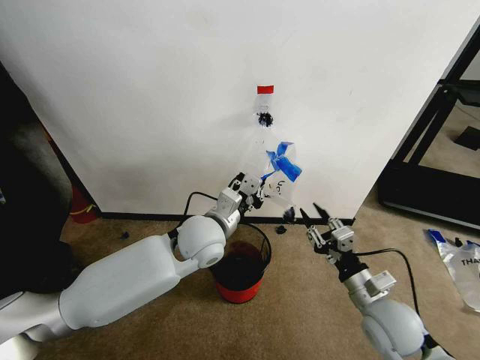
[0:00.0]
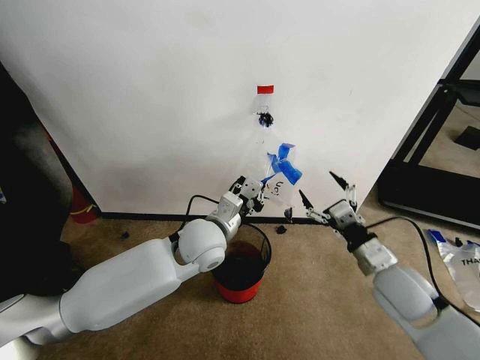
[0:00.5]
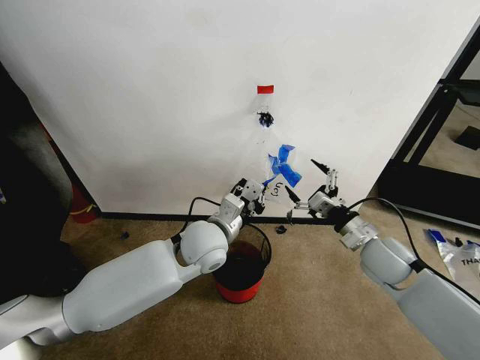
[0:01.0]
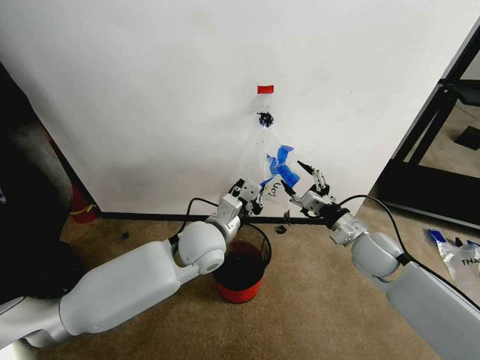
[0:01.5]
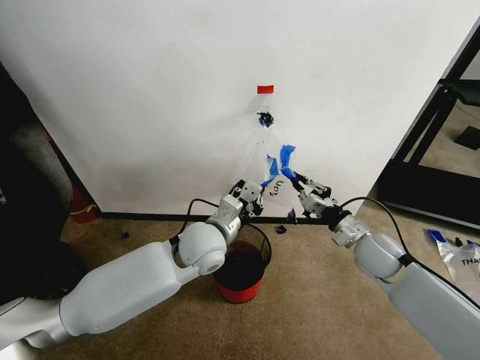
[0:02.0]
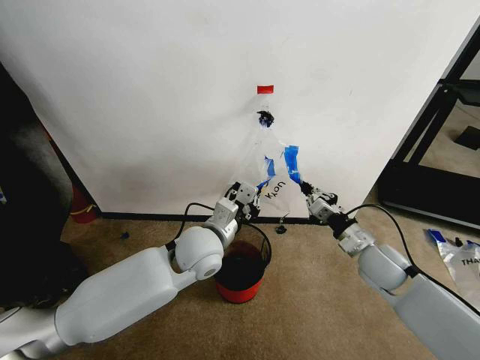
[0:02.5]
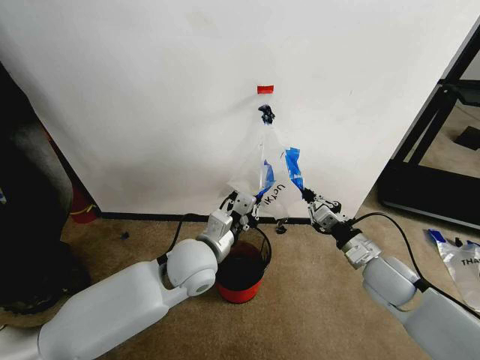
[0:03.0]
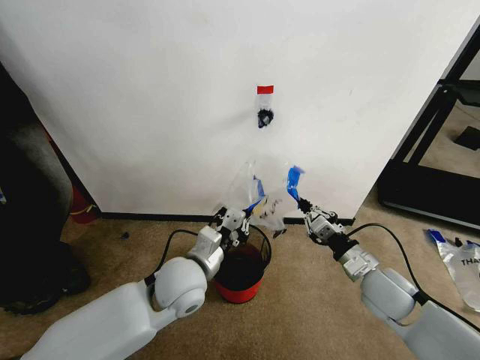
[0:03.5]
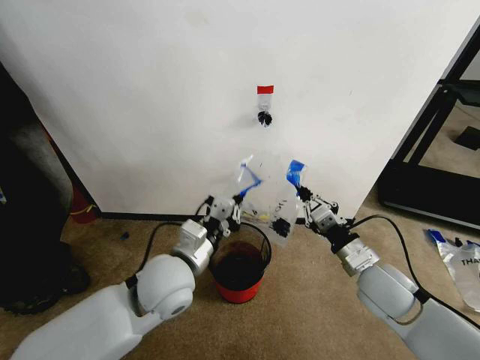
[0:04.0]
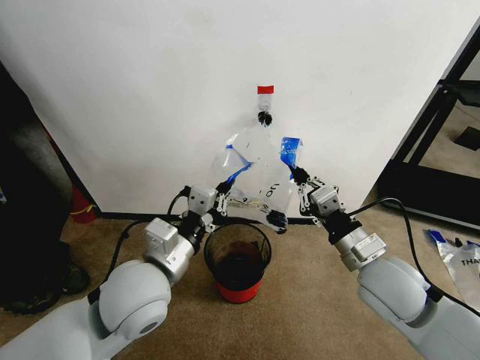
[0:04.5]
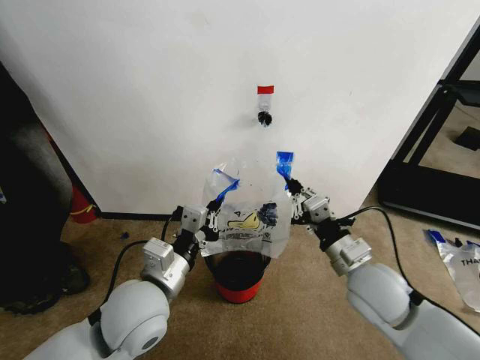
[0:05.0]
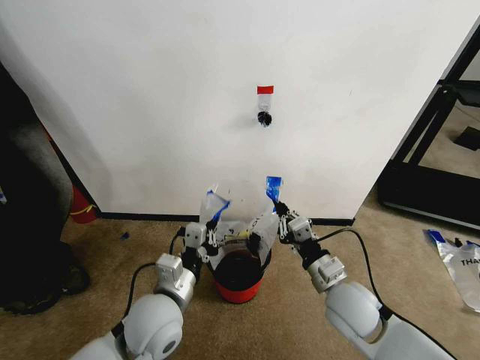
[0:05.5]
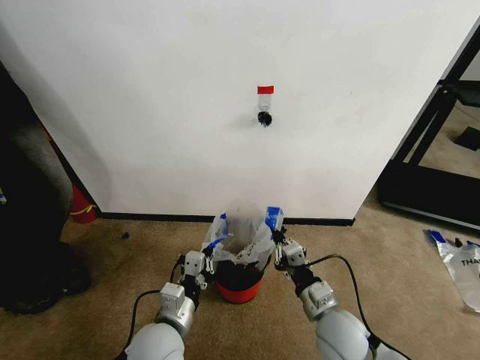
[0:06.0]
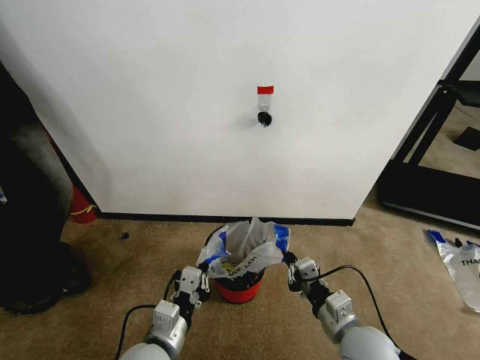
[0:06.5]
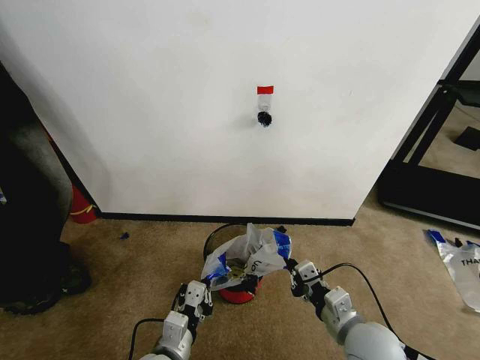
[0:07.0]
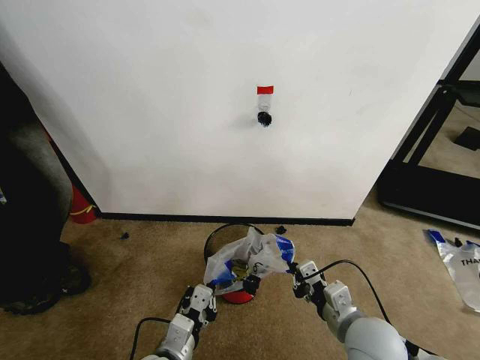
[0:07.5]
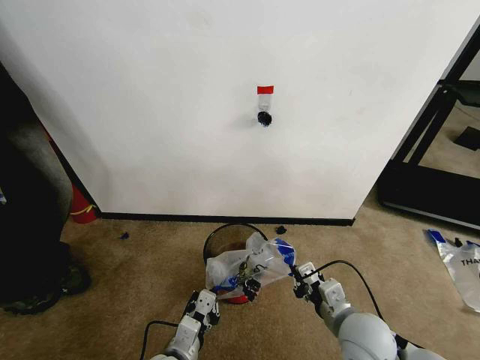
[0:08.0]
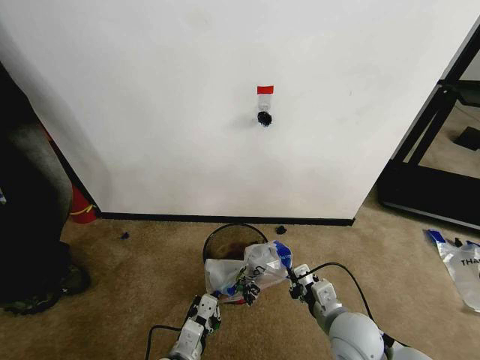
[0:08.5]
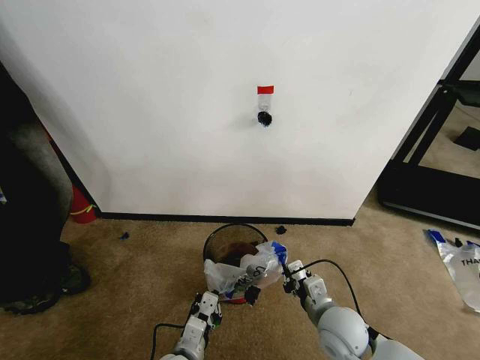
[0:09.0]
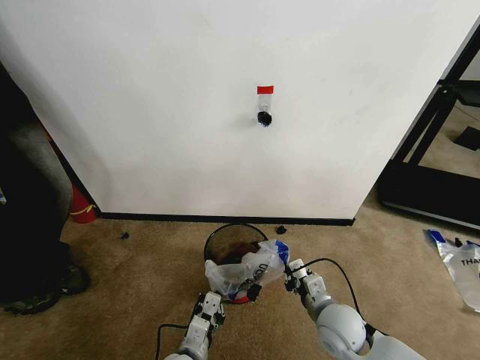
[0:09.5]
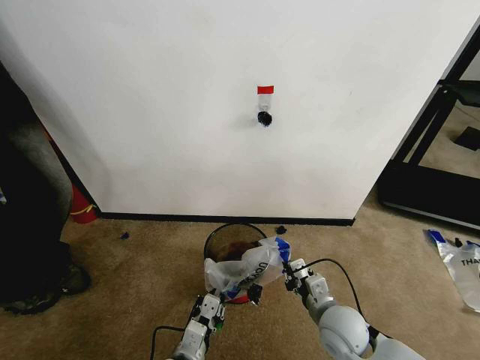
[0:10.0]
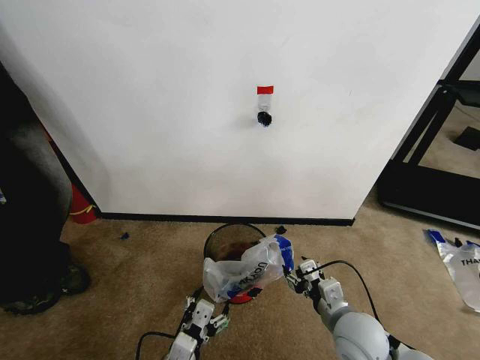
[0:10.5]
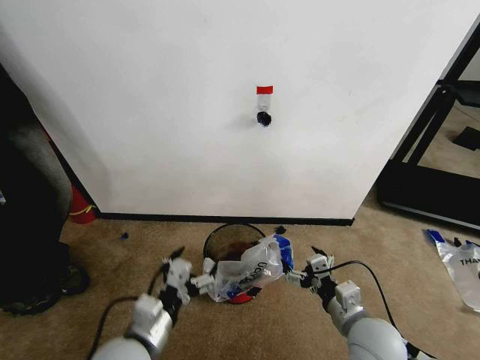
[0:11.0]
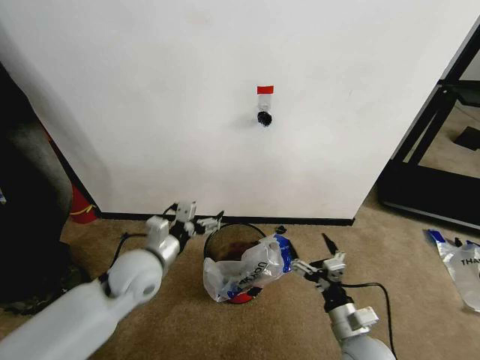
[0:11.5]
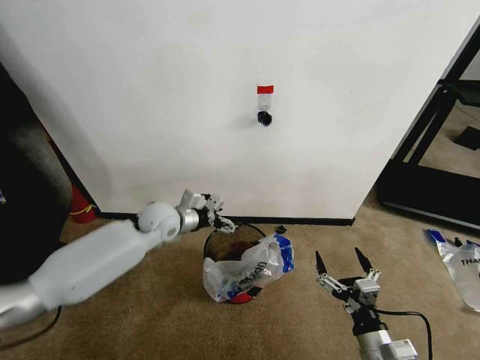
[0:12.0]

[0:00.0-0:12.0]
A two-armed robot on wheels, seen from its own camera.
Task of the whole recording: Pick up the garbage bag from the wall and place it over the trash bin.
0:00.0 to 0:02.0: The right gripper shifts about 15 cm forward, and opens, then closes again.
0:02.0 to 0:04.0: The right gripper is displaced backward by approximately 10 cm; the left gripper goes approximately 10 cm backward and to the left.
0:04.0 to 0:06.0: The right gripper is displaced to the left, downward and backward by approximately 15 cm; the left gripper moves downward and backward, roughly 15 cm.
0:06.0 to 0:08.0: The left gripper shifts approximately 5 cm downward.
0:08.0 to 0:10.0: The right gripper ends up roughly 5 cm from where it was.
0:10.0 to 0:12.0: The left gripper heads forward and upward, covering approximately 35 cm, and opens. The right gripper travels backward and to the right by approximately 15 cm, and opens up.

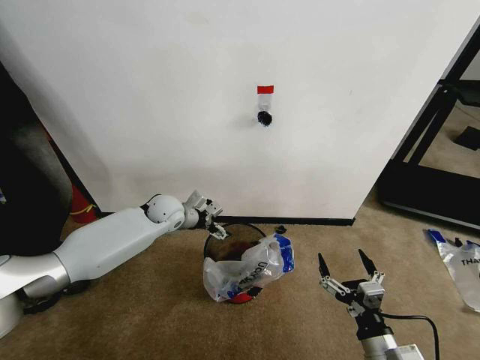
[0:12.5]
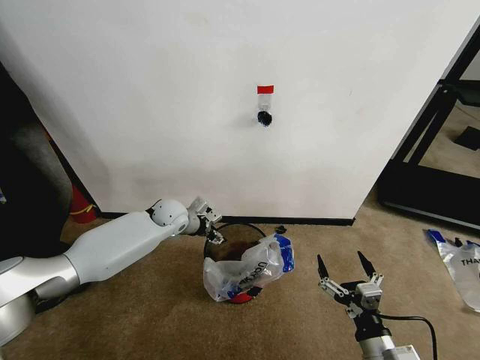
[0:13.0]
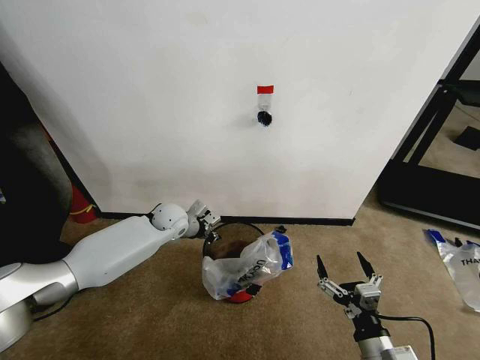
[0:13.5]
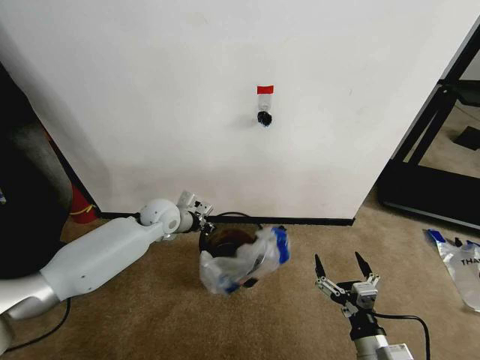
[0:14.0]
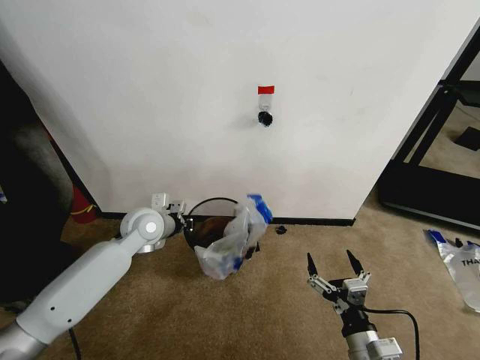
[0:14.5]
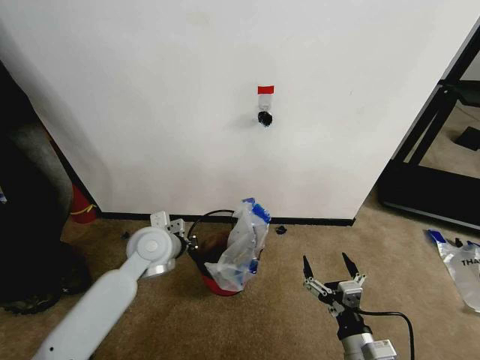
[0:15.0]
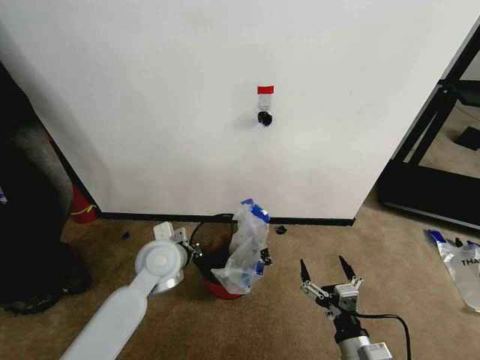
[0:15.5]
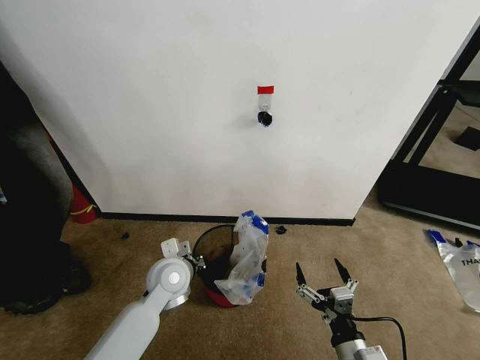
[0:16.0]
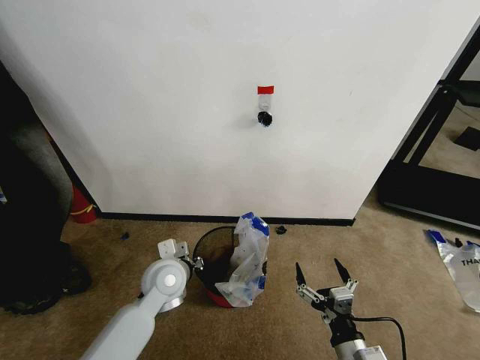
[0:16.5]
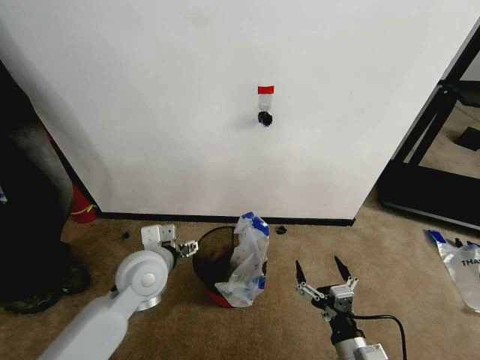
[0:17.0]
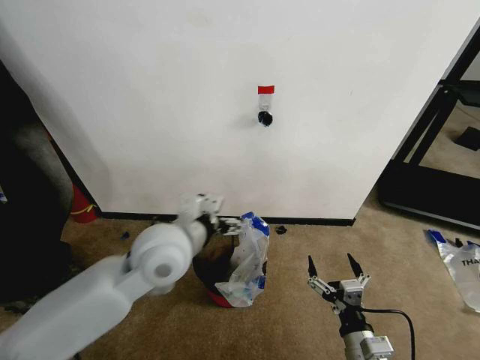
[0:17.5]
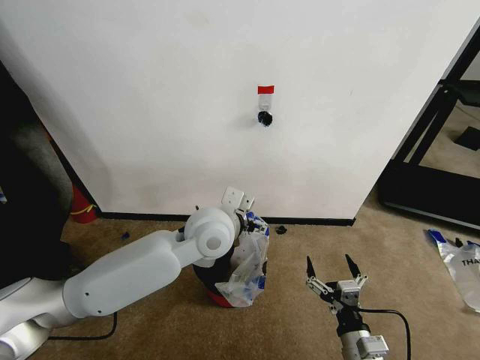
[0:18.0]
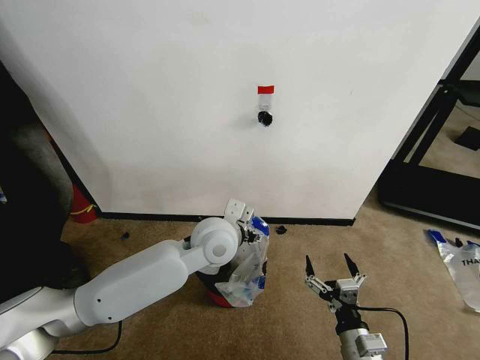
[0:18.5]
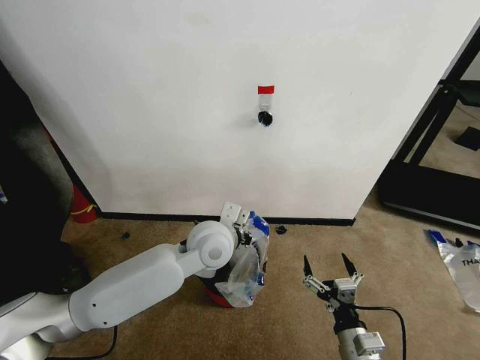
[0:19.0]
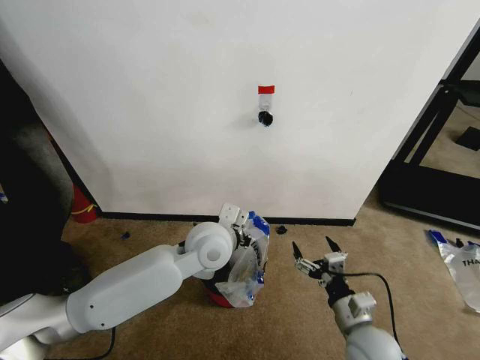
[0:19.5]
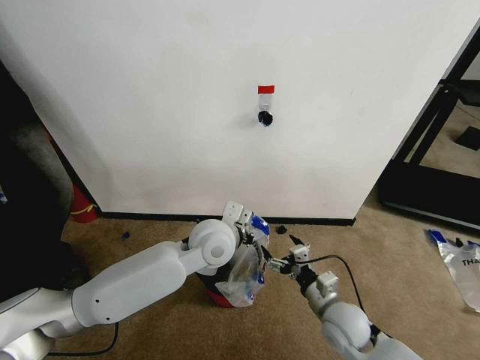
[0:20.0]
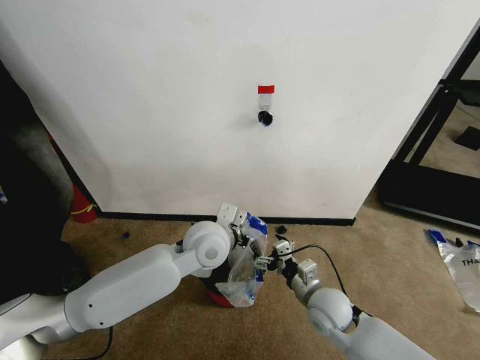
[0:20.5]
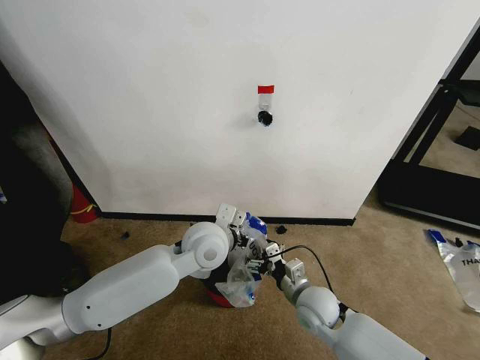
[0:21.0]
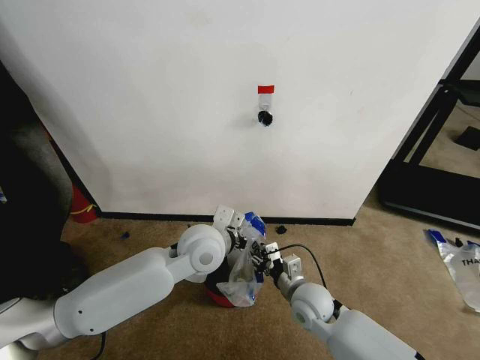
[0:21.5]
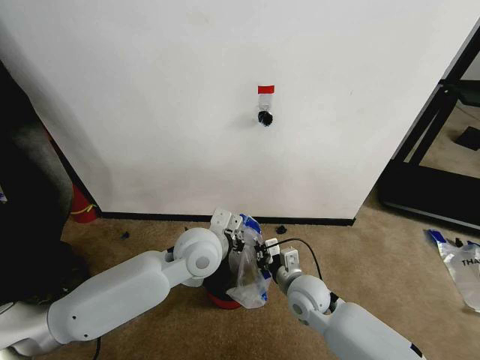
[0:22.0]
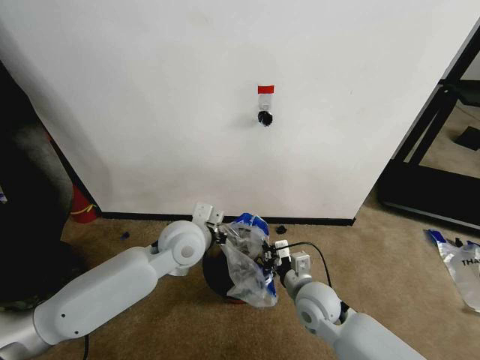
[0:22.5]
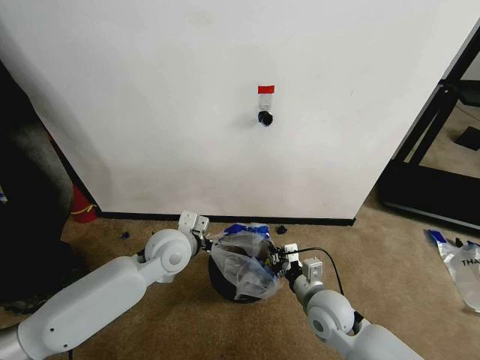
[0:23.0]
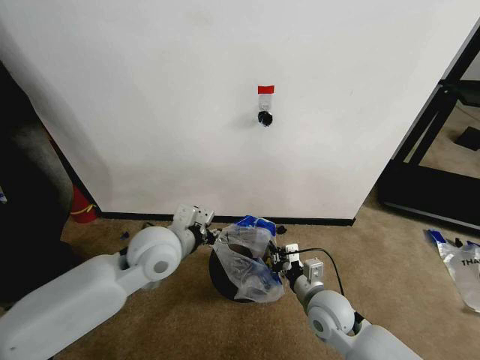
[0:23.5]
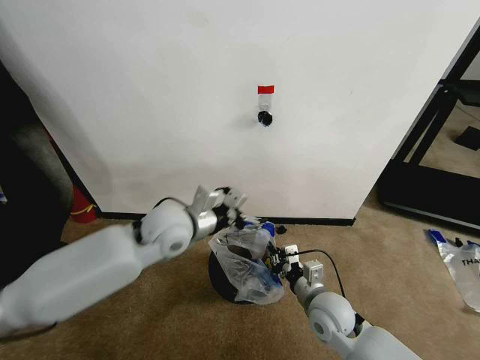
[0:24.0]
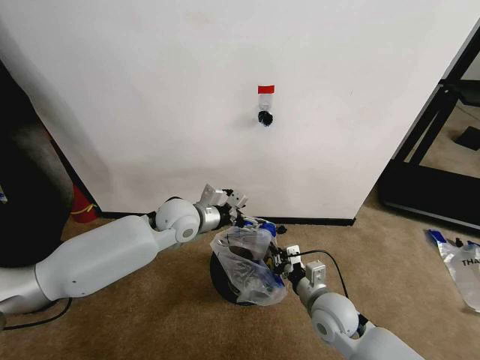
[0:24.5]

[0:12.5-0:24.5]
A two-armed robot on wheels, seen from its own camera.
Task of the whole recording: Pick up the garbage bag from the wall and place it over the trash bin.
0:12.5 to 0:14.5: The left gripper heads backward, covering some 10 cm, and closes its fingers.
0:14.5 to 0:16.5: The left gripper moves backward, downward and to the right, about 15 cm.
0:16.5 to 0:18.5: The left gripper moves to the right and upward, roughly 15 cm, and opens its fingers.
0:18.5 to 0:20.5: The left gripper closes its fingers. Meanwhile the right gripper moves forward, roughly 15 cm.
0:20.5 to 0:22.5: The right gripper closes its fingers.
0:22.5 to 0:24.5: The left gripper moves forward, about 5 cm, and opens up.

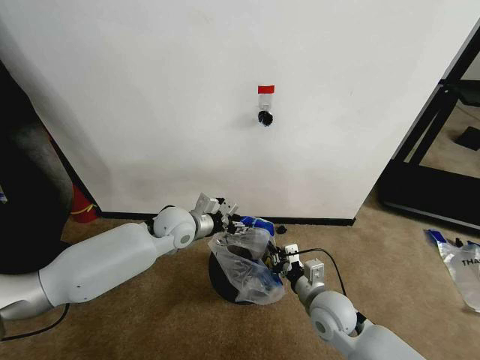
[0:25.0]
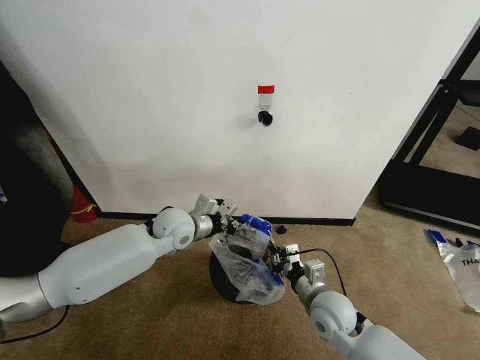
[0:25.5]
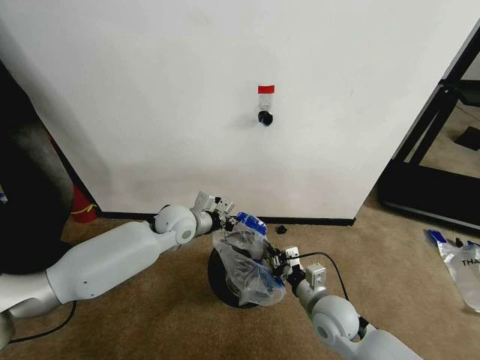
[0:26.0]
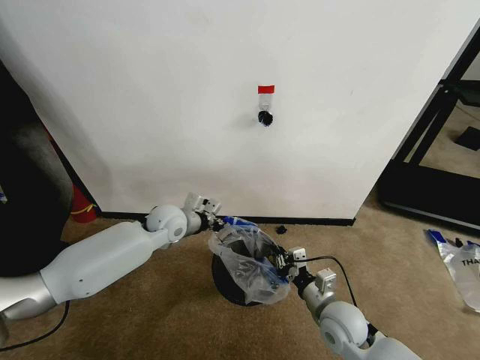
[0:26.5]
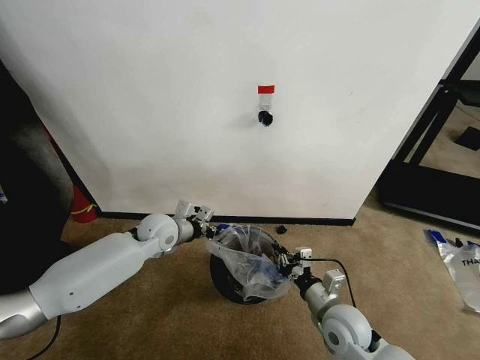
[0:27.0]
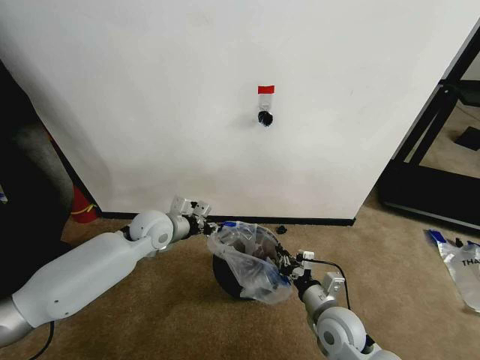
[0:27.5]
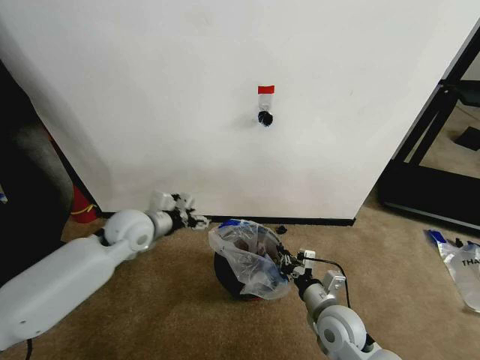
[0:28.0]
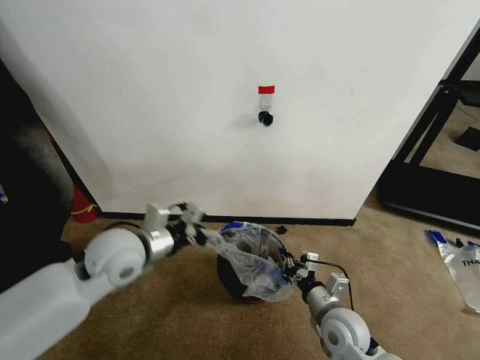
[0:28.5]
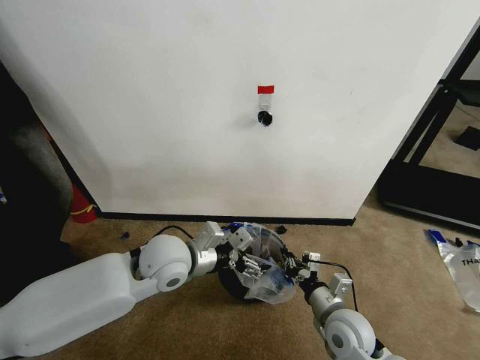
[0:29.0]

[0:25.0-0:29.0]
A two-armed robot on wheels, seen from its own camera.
Task of the whole recording: Pick up the garbage bag from the wall and place it over the trash bin.
0:25.0 to 0:27.0: The left gripper moves to the left, roughly 5 cm, and closes up.
0:27.0 to 0:29.0: The left gripper is displaced backward, upward and to the right by approximately 15 cm, and opens its fingers.
